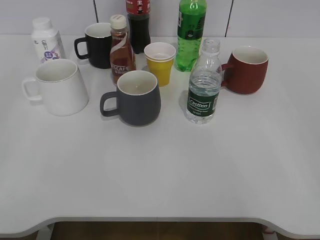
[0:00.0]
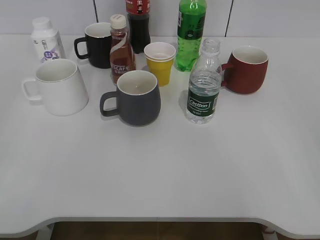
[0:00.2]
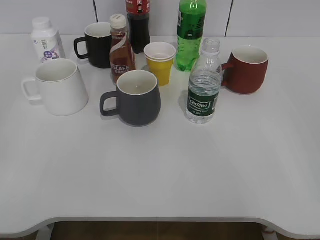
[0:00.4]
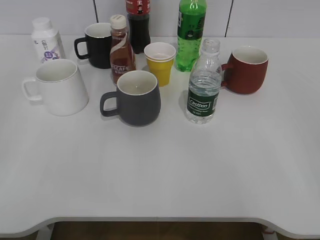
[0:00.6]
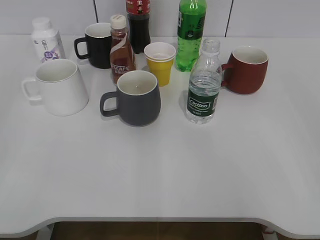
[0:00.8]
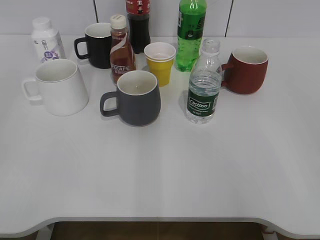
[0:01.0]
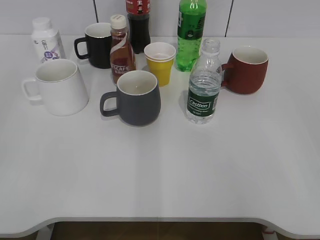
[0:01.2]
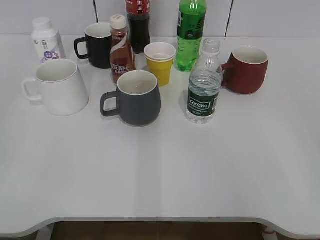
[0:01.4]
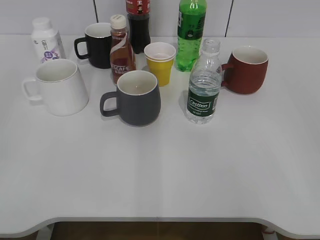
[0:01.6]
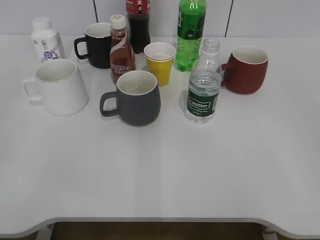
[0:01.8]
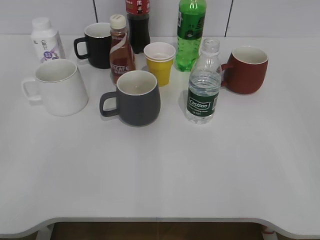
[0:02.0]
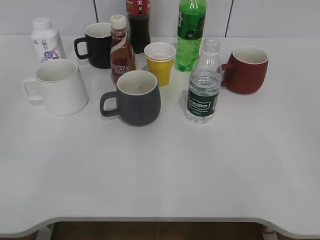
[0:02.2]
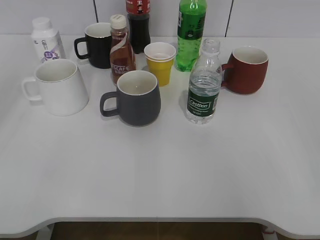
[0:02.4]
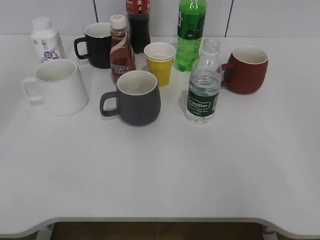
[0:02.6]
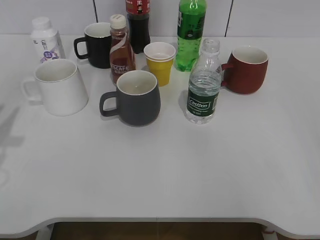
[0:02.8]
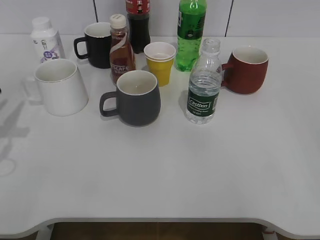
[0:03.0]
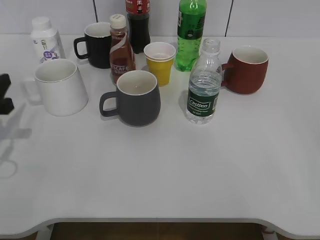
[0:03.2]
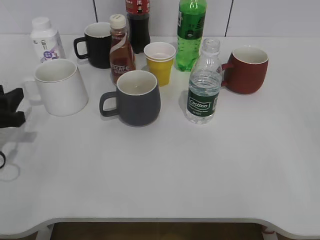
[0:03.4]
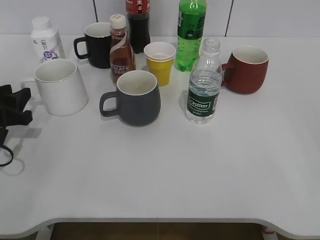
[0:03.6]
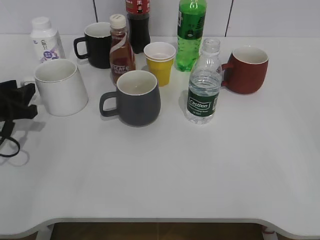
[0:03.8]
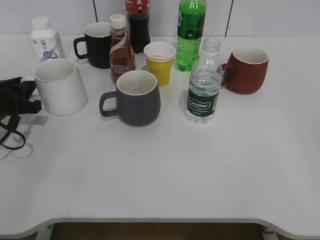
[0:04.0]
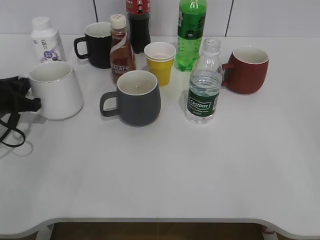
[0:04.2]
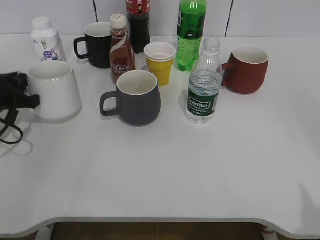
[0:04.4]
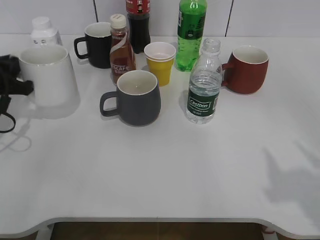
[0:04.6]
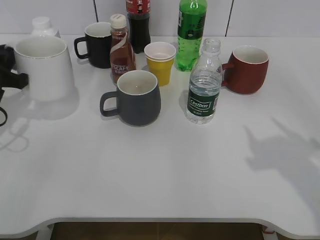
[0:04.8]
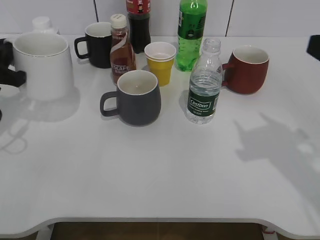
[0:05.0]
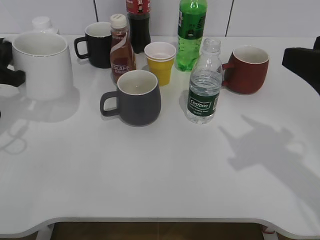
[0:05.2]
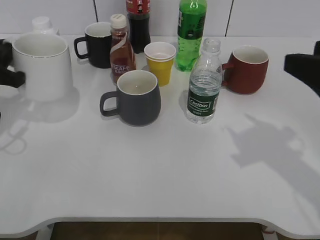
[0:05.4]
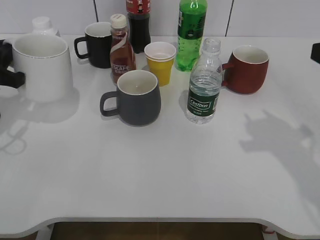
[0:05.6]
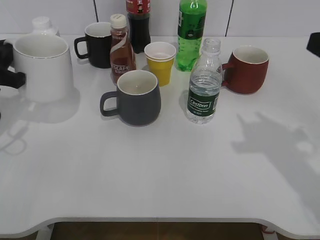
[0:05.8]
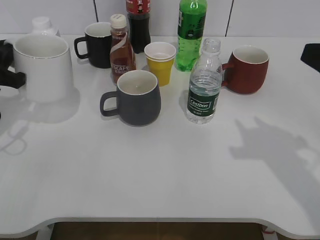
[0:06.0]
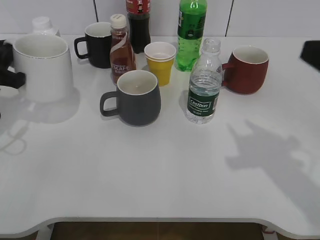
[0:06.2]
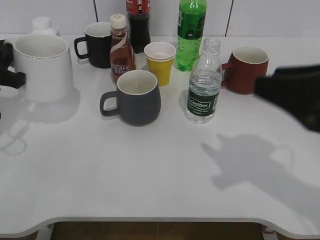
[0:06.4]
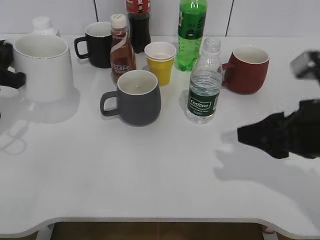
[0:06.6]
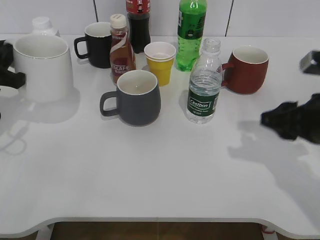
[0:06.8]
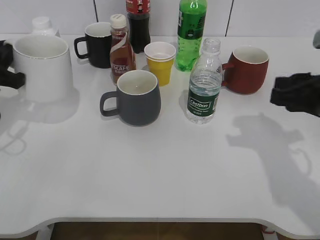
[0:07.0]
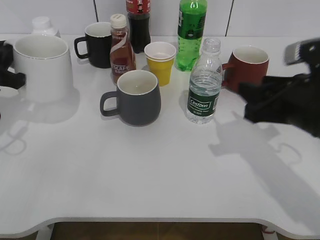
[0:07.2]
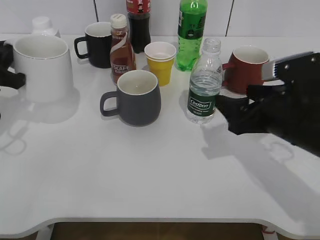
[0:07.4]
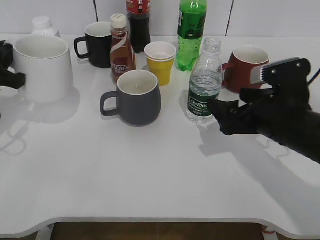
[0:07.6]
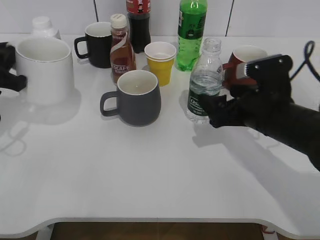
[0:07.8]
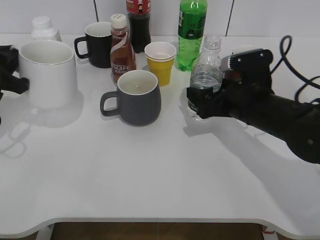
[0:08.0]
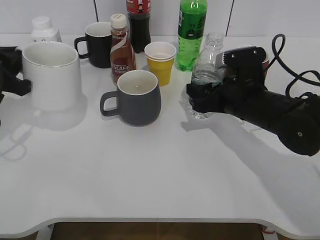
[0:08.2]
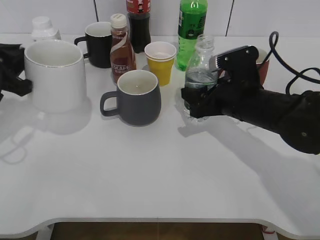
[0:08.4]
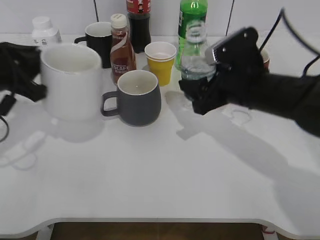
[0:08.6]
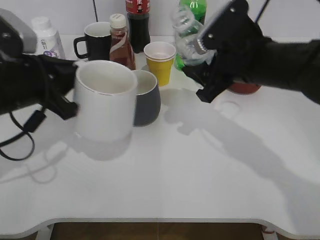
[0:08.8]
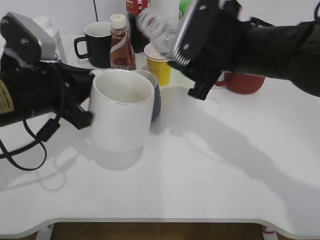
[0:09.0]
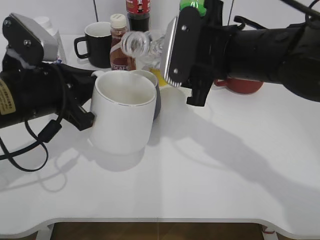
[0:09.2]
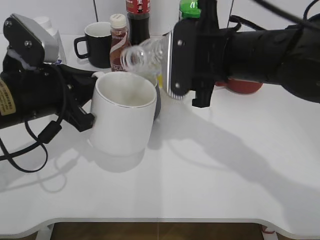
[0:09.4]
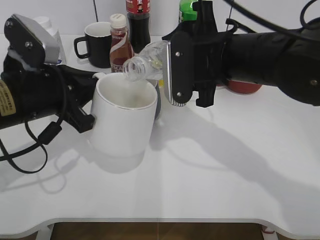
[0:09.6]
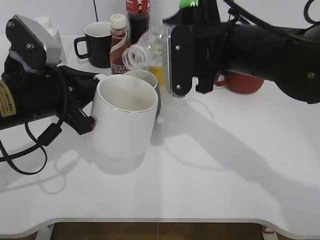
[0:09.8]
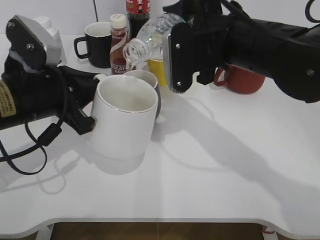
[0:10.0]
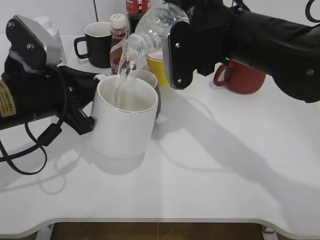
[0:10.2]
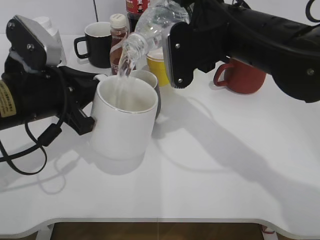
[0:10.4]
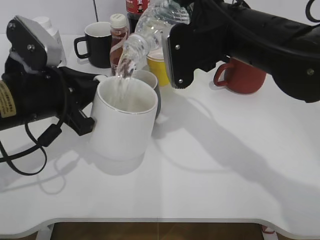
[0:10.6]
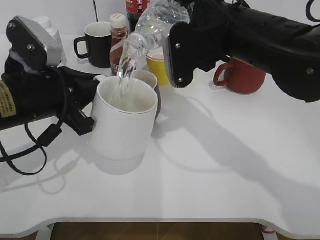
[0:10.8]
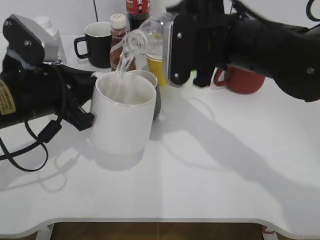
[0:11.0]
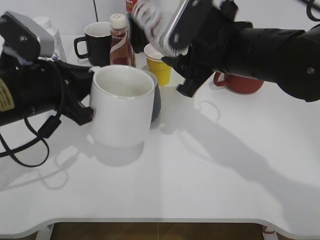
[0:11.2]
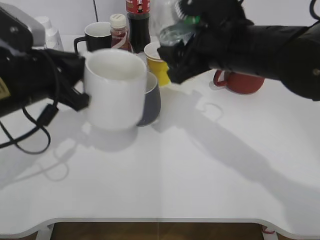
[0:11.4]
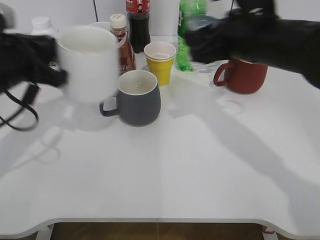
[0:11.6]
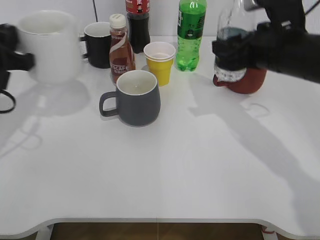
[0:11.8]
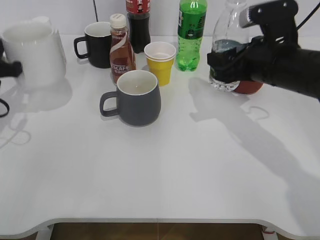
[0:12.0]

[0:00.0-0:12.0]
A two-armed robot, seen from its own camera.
Step, 0:01.8 to 0:04.2: Grasp the white cup with left gripper.
Step, 0:04.6 to 0:08.2: Grasp the bottle with water with right gripper.
Step, 0:08.4 to 0:11.2: Pour the water from bottle to cup with right gripper.
0:01.6 to 0:03.0: The left gripper moves forward, some 25 cm.
0:03.0 to 0:04.4: The left gripper travels forward and downward by some 10 cm, and closes.
0:04.4 to 0:06.0: The left gripper is displaced upward by some 10 cm; the right gripper shifts about 15 cm forward, and closes.
0:06.0 to 0:07.6: The right gripper shifts roughly 15 cm downward, to the left and forward, and opens its fingers.
0:07.6 to 0:09.0: The right gripper heads upward and to the left, covering about 10 cm, and closes up. The left gripper moves to the right and backward, approximately 10 cm.
0:10.4 to 0:12.0: The left gripper shifts approximately 15 cm to the left and forward. The right gripper moves to the right and downward, roughly 10 cm.

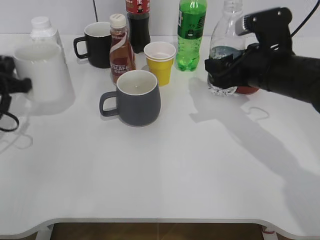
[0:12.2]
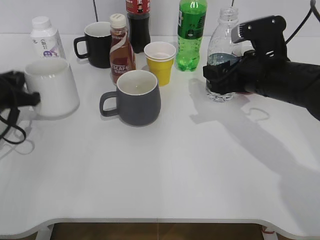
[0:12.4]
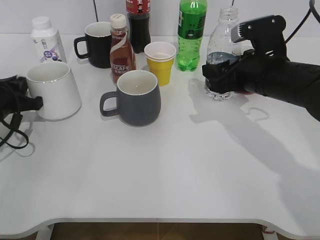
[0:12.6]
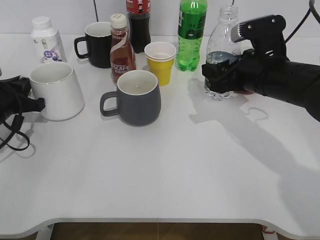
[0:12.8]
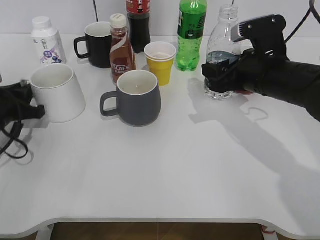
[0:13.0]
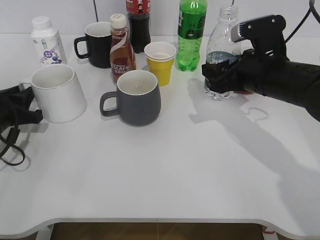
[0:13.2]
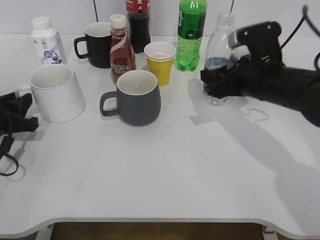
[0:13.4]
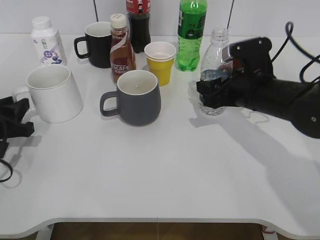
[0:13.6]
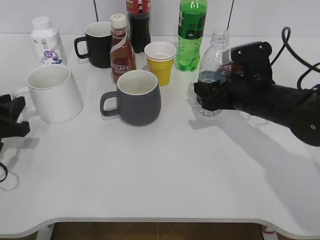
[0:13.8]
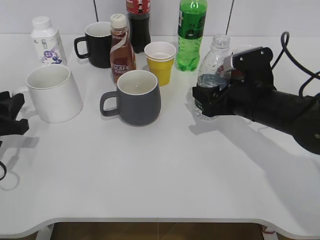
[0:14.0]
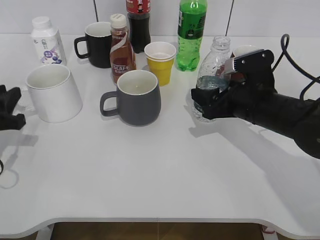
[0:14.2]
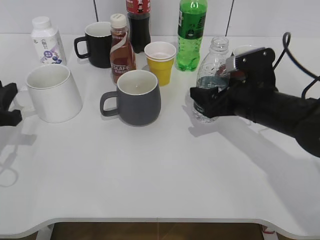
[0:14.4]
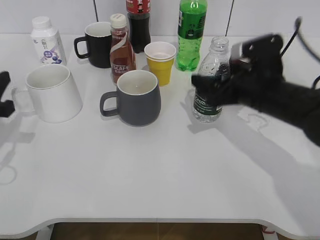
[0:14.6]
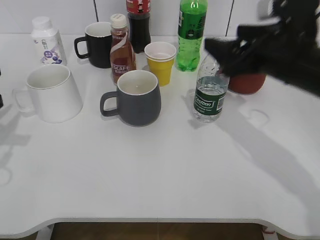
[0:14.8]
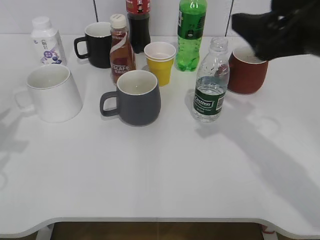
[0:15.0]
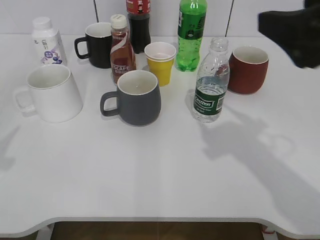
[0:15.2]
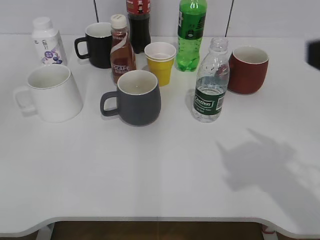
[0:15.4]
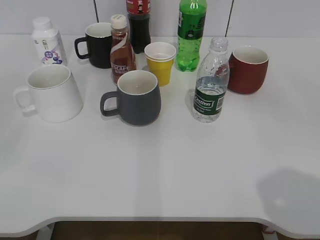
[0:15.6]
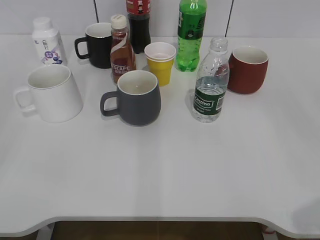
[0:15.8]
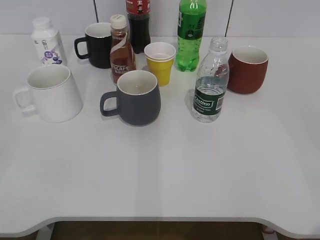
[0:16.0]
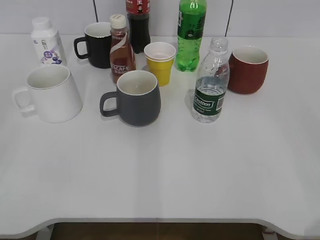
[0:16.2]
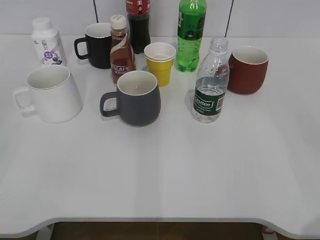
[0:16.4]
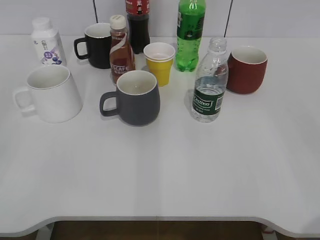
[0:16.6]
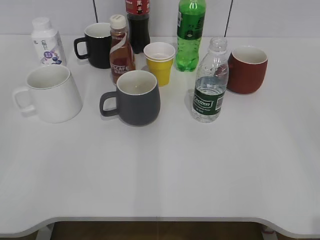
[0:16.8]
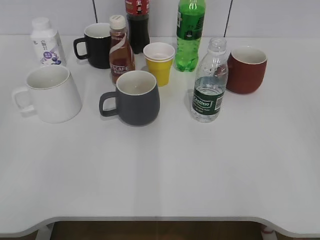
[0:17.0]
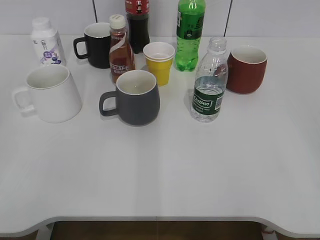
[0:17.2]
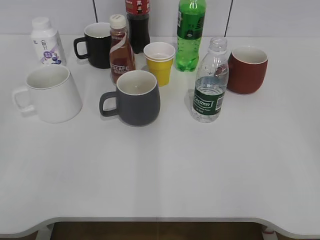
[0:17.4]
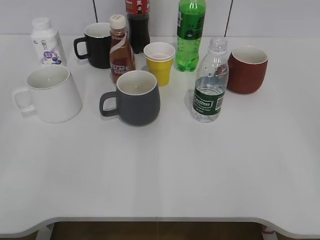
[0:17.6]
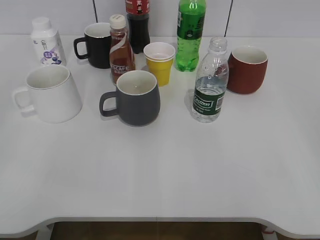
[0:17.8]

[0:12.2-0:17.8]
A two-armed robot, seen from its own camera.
Step, 0:12.2 to 0:14.8: Place the water bottle on the table with right gripper.
0:12.2 to 0:13.6: The left gripper moves backward, roughly 5 cm, and opens up.
0:13.6 to 0:15.0: Both grippers move upward and backward, approximately 15 cm. The right gripper opens up.
0:15.0 to 0:16.4: The right gripper moves backward and to the right, roughly 25 cm, while the left gripper travels backward by roughly 20 cm, and opens up.
